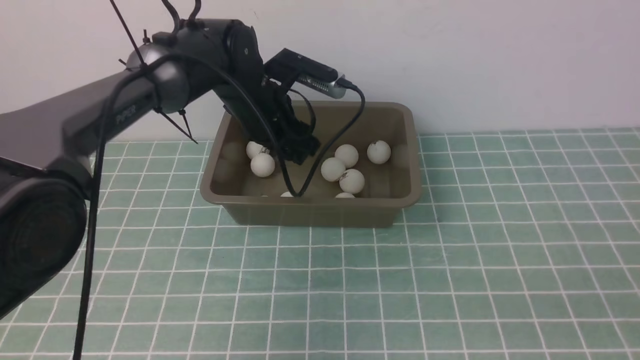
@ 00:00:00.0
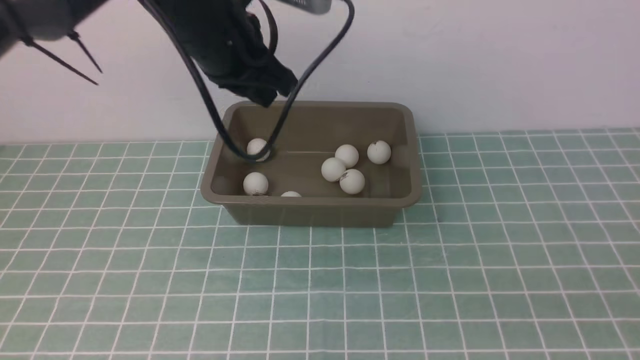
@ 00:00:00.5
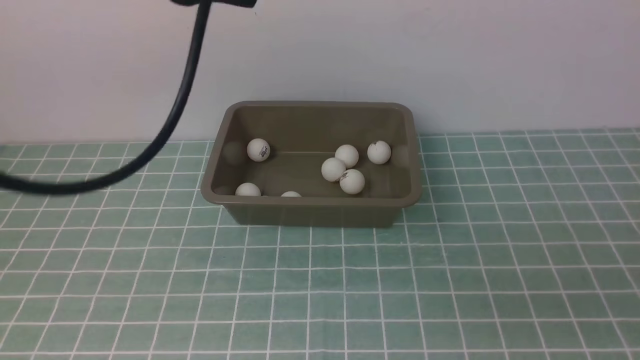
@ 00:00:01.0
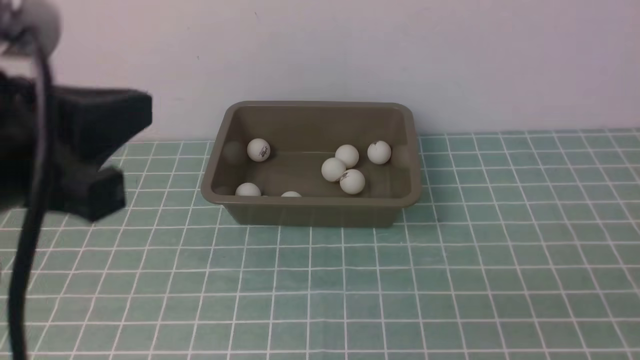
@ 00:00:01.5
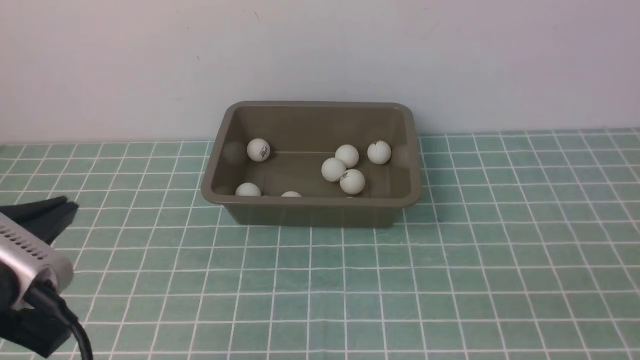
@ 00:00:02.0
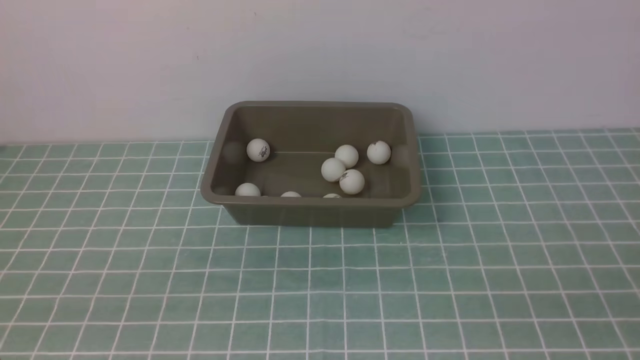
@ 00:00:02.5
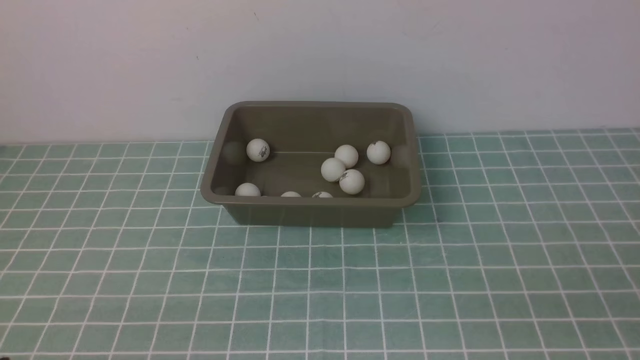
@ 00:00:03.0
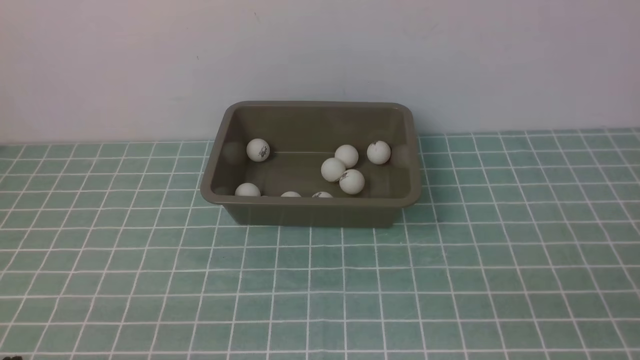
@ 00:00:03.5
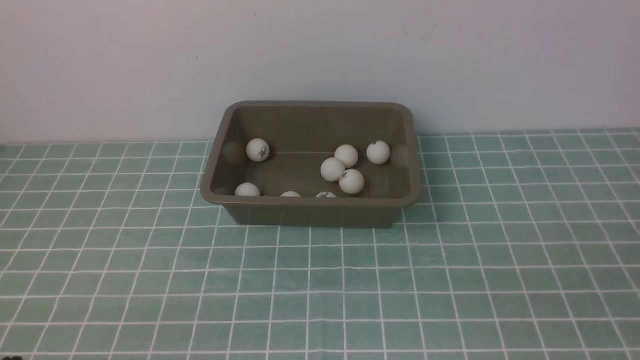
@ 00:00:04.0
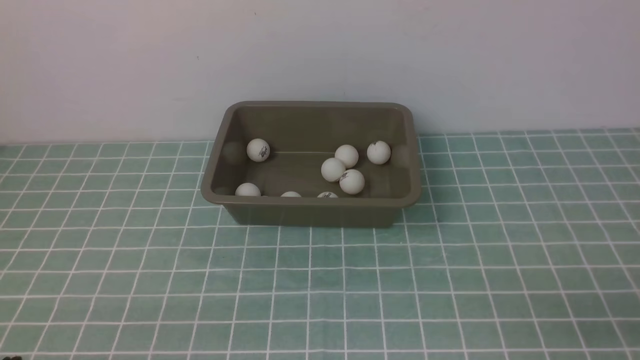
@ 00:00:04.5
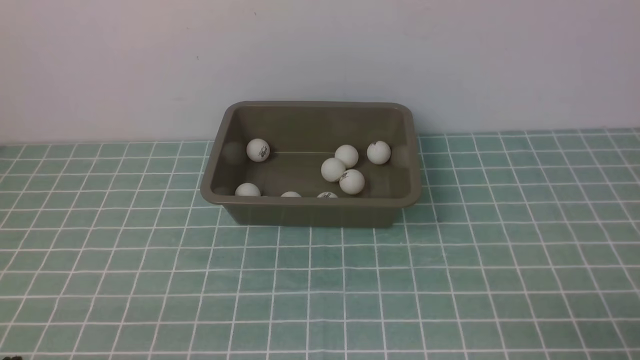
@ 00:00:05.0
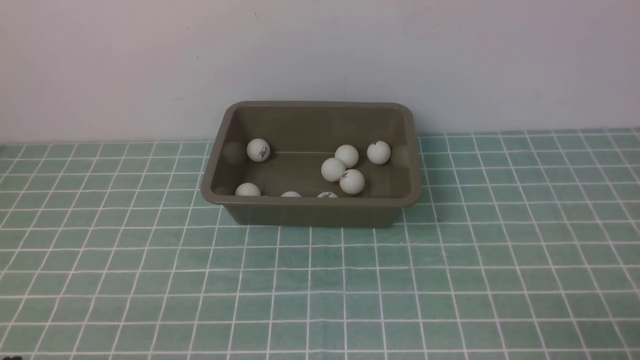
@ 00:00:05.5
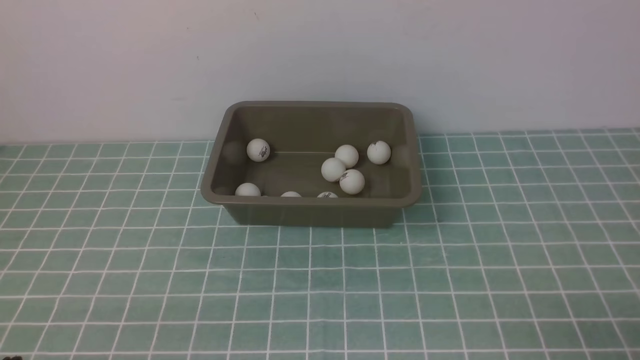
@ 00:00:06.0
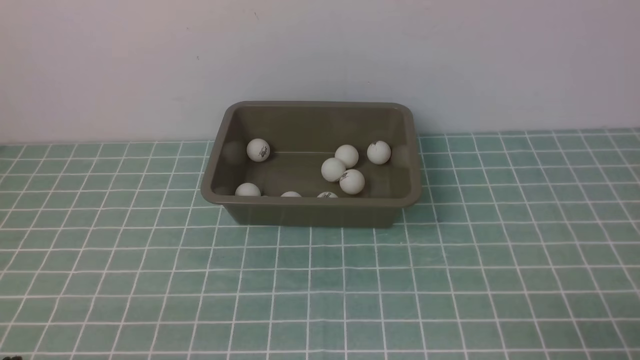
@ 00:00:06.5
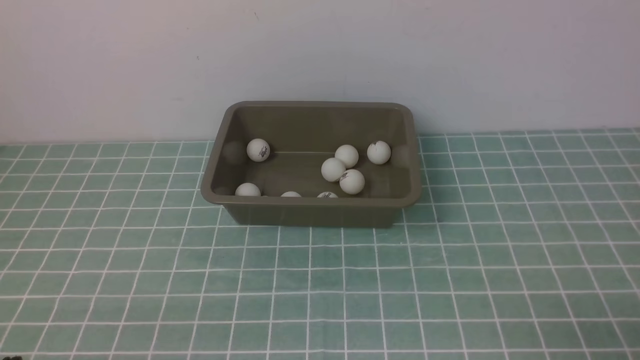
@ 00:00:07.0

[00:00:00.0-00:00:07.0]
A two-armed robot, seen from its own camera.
00:00:00.0 to 00:00:02.0: The left gripper heads backward and to the left, covering some 35 cm.
00:00:02.0 to 00:00:03.5: The left gripper goes roughly 15 cm downward.
00:00:05.0 to 00:00:07.0: Both grippers stay put.

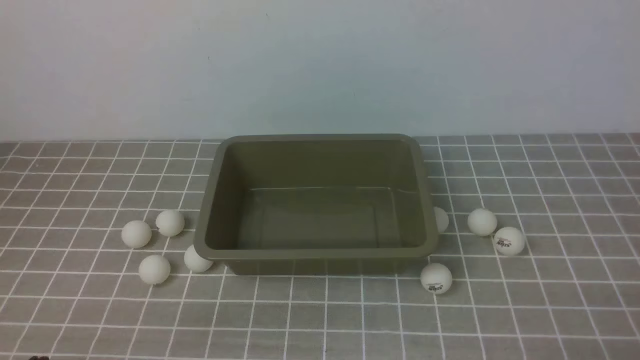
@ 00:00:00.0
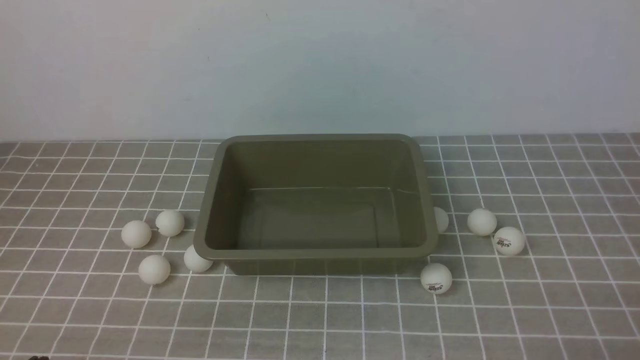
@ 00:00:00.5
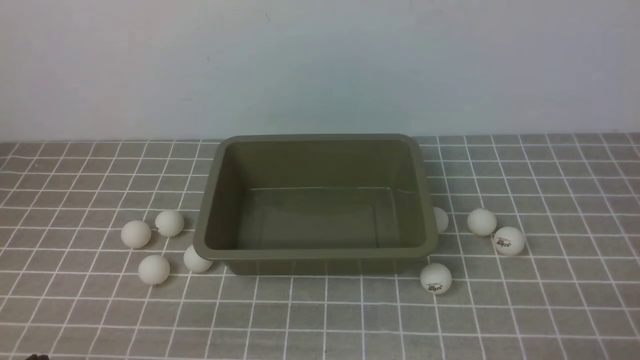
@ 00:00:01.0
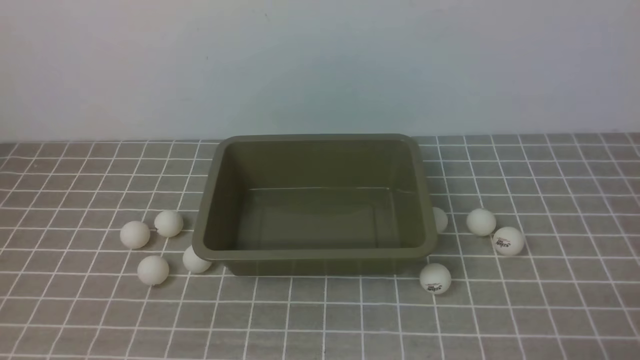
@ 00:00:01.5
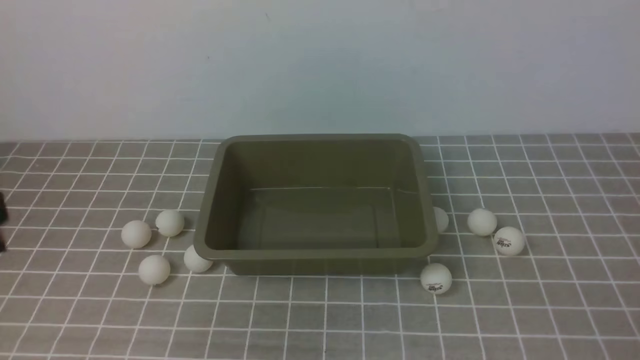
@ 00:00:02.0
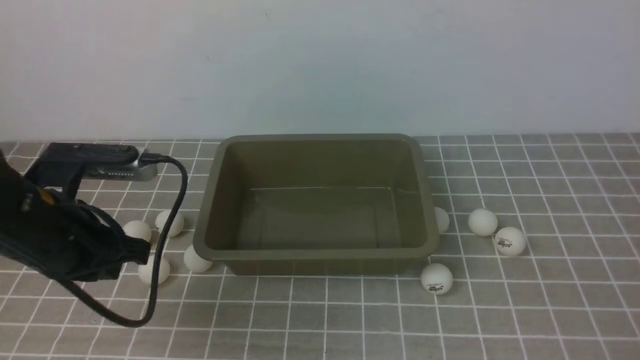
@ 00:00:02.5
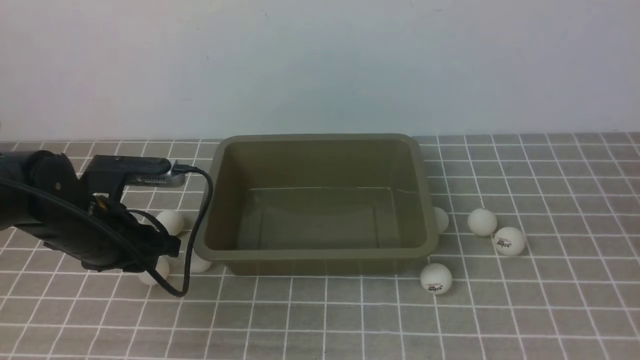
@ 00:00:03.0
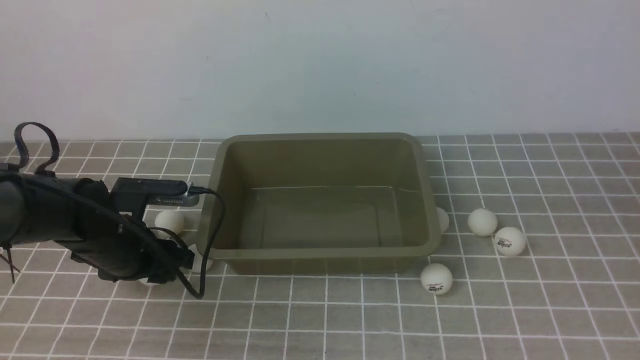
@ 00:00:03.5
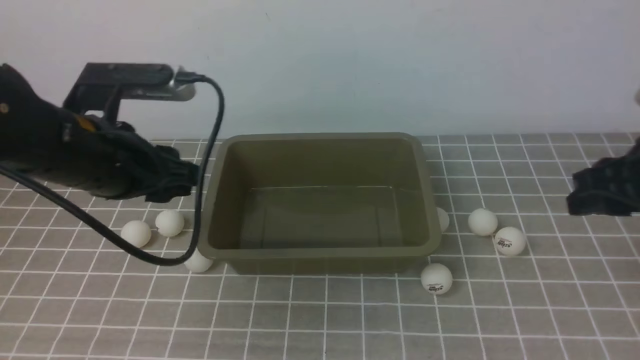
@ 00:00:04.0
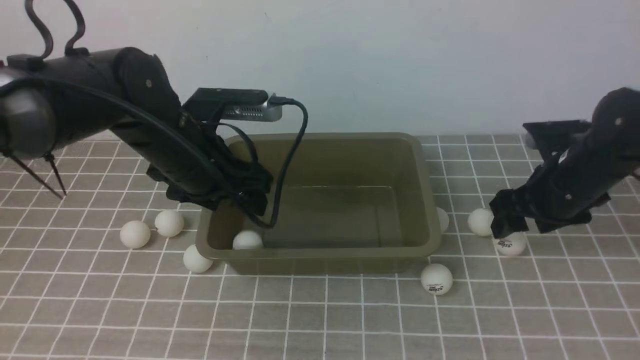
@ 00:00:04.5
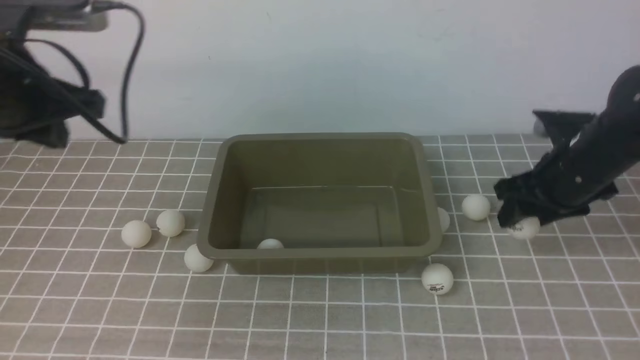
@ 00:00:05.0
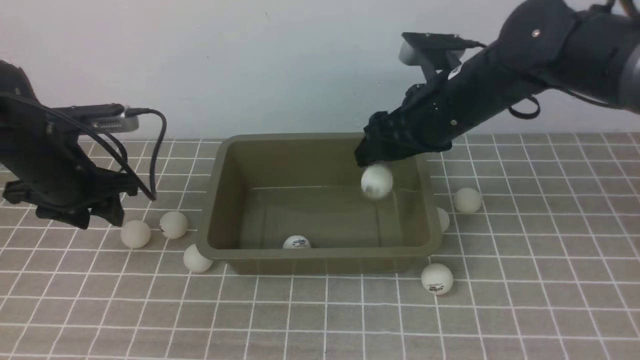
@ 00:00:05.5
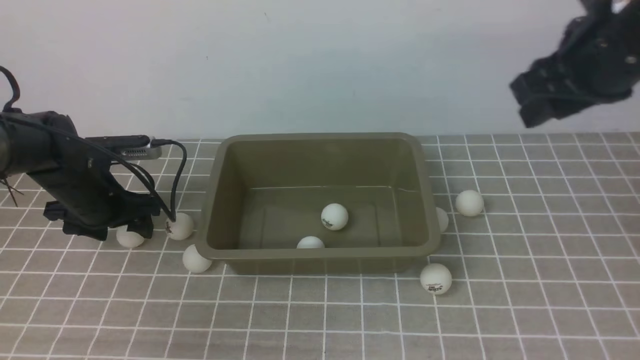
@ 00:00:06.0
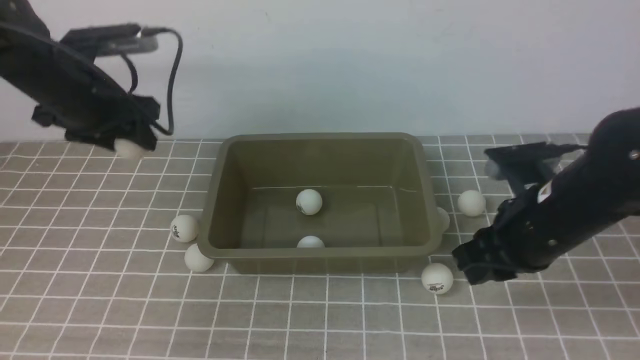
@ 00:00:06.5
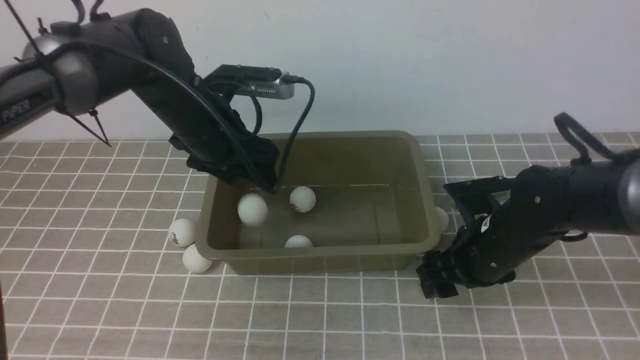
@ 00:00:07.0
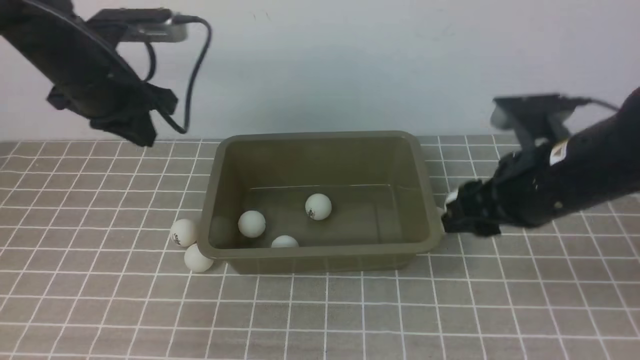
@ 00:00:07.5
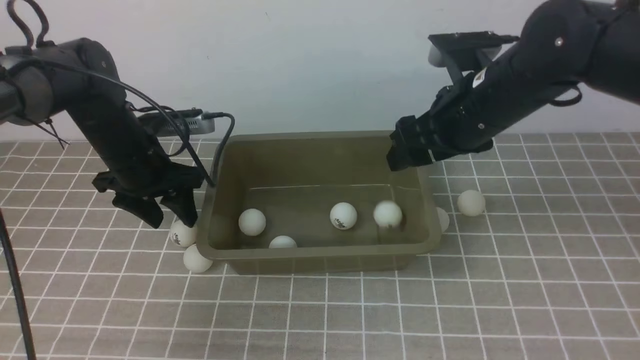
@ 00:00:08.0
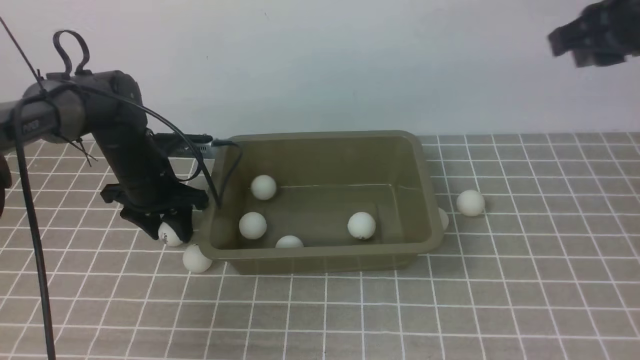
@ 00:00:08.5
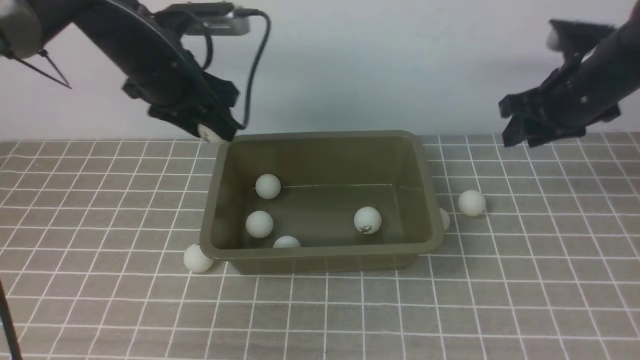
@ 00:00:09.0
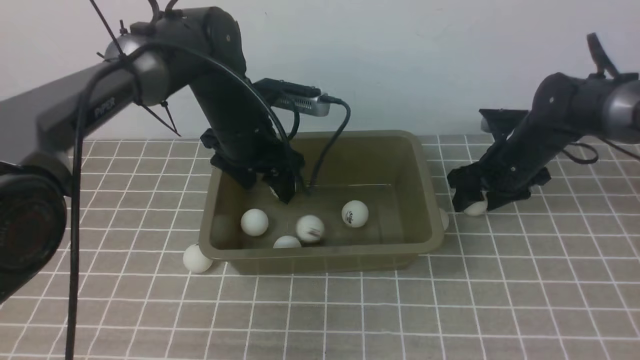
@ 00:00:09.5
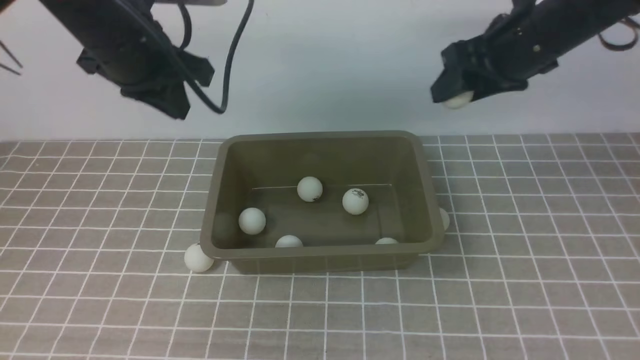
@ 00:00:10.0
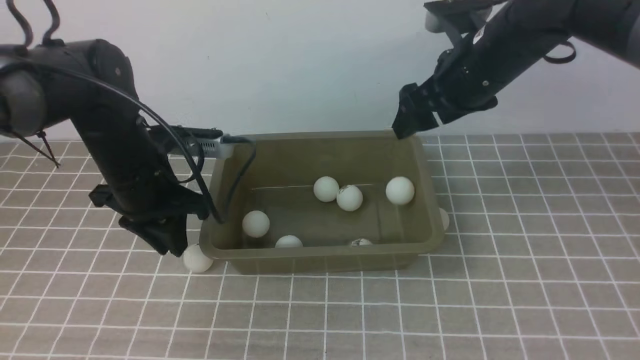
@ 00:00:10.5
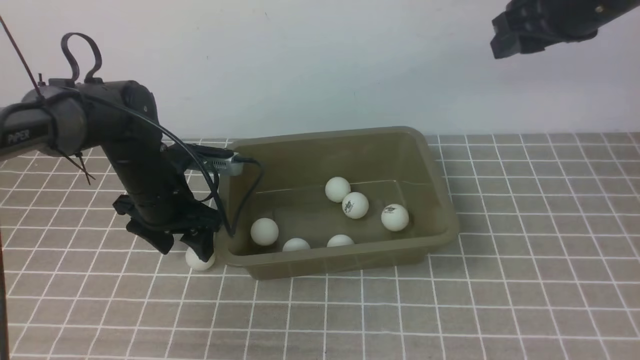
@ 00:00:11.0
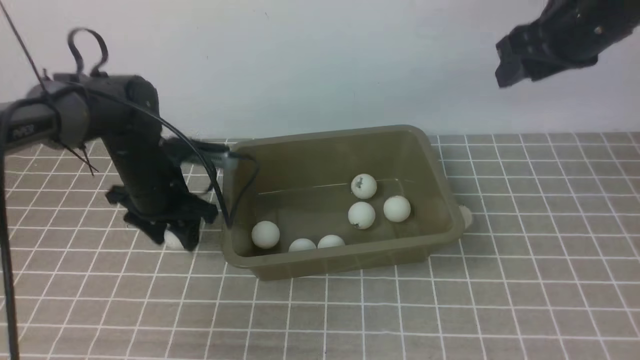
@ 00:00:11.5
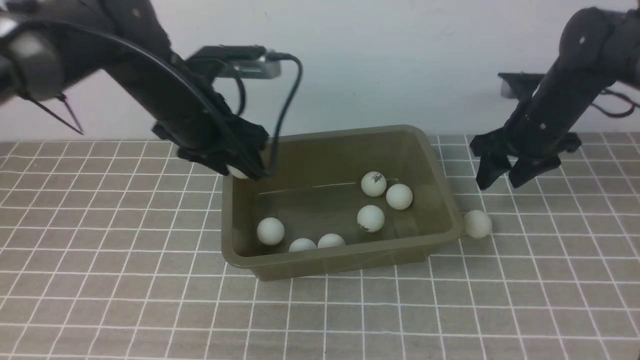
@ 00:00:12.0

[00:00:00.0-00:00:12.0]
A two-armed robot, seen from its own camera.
Step, 00:00:00.0 to 00:00:03.5: use the left arm to clamp the table tennis ball closest to it.
Step, 00:00:04.0 to 00:00:04.5: use the left arm to put the table tennis ball into the box.
Step, 00:00:06.5 to 00:00:07.0: use the left arm to put the table tennis ball into the box.
Step, 00:00:08.0 to 00:00:08.5: use the left arm to clamp the table tennis ball closest to it.
Step, 00:00:10.5 to 00:00:11.5: use the left arm to clamp the table tennis ball closest to it.
00:00:02.0 to 00:00:04.0: The right gripper shifts roughly 20 cm forward and upward, and opens, while the left gripper goes some 25 cm forward and downward, and opens up.
00:00:04.0 to 00:00:06.0: The left gripper shifts approximately 15 cm downward, forward and to the left, and closes, then opens again, while the right gripper goes approximately 10 cm to the left and forward, and goes downward and returns, approximately 10 cm each way.
00:00:06.0 to 00:00:08.0: The left gripper heads upward, covering roughly 5 cm, and closes up, while the right gripper reaches some 20 cm downward, then returns, and closes and opens again.
00:00:08.0 to 00:00:10.0: The left gripper heads upward and to the right, covering about 15 cm, and closes up, while the right gripper swings up and down, some 20 cm each way, with 2 reversals.
00:00:10.0 to 00:00:12.0: Both grippers travel together downward, approximately 5 cm. The left gripper opens up.
